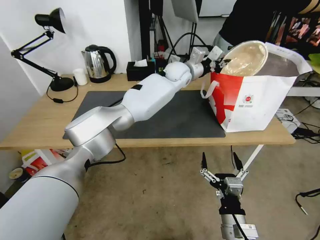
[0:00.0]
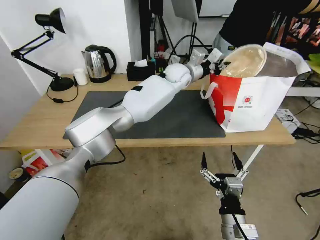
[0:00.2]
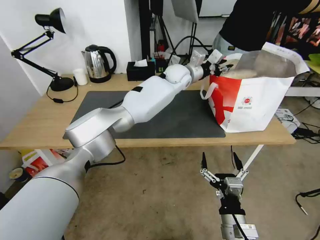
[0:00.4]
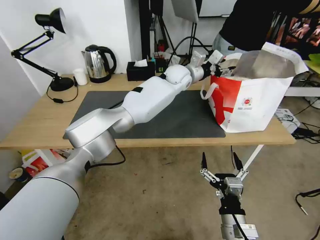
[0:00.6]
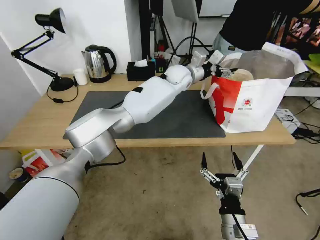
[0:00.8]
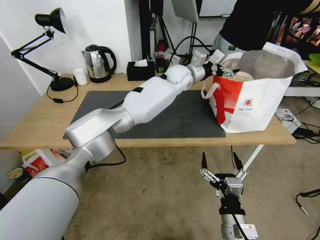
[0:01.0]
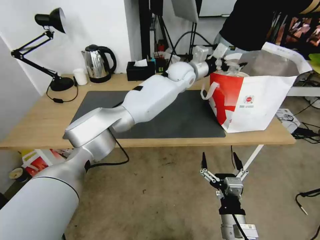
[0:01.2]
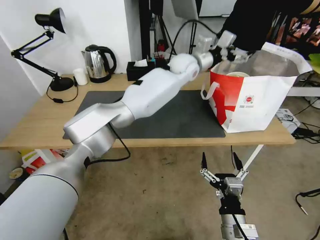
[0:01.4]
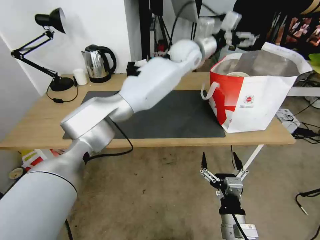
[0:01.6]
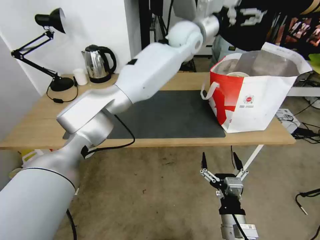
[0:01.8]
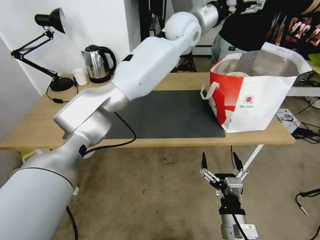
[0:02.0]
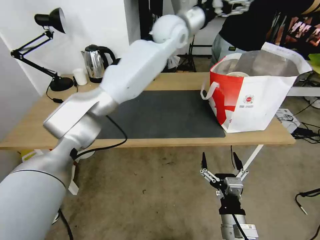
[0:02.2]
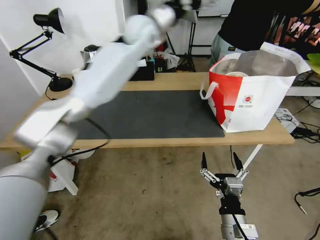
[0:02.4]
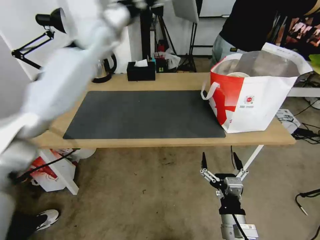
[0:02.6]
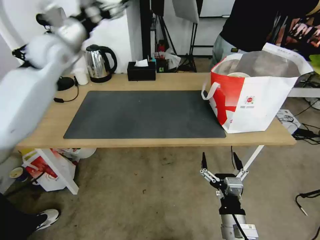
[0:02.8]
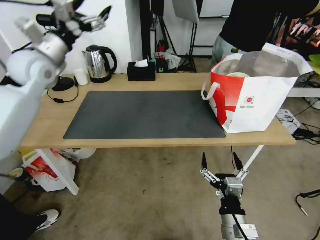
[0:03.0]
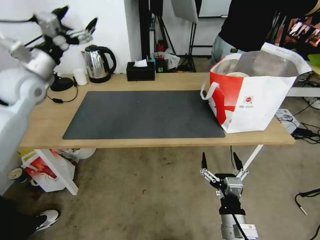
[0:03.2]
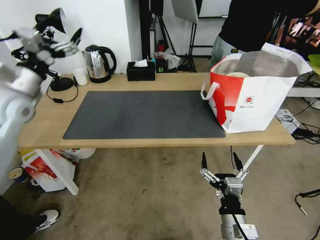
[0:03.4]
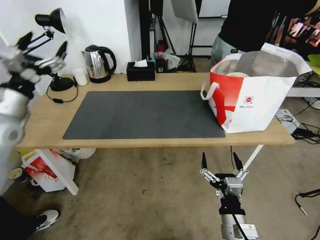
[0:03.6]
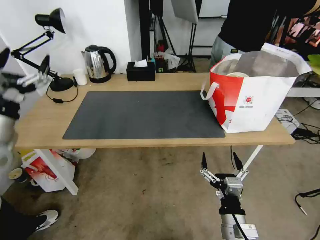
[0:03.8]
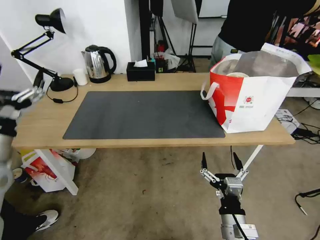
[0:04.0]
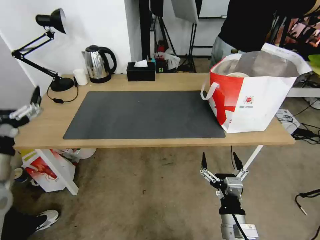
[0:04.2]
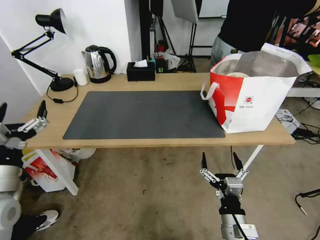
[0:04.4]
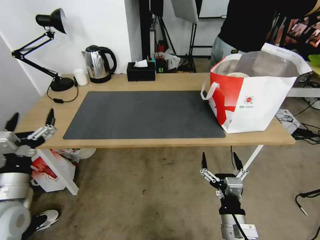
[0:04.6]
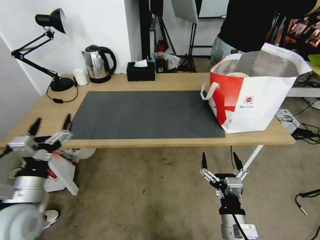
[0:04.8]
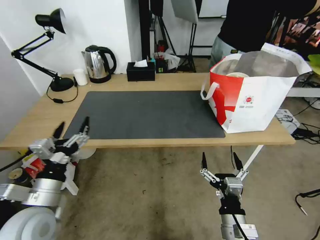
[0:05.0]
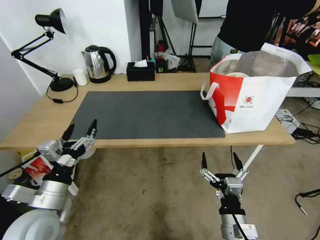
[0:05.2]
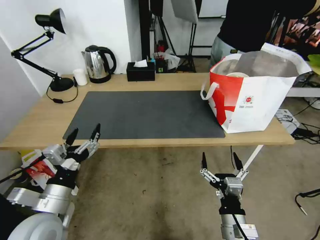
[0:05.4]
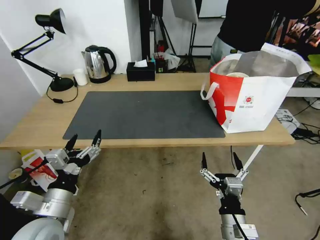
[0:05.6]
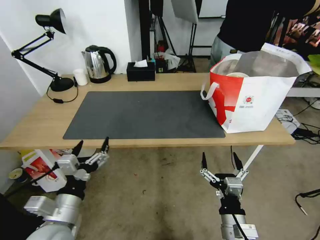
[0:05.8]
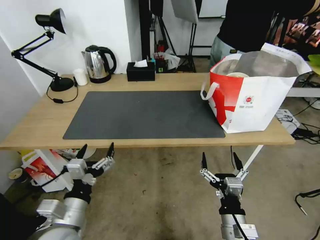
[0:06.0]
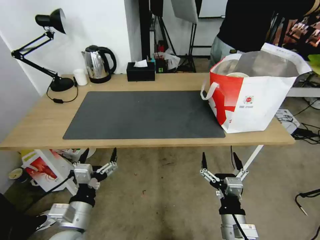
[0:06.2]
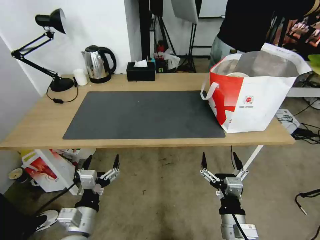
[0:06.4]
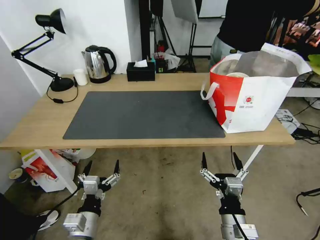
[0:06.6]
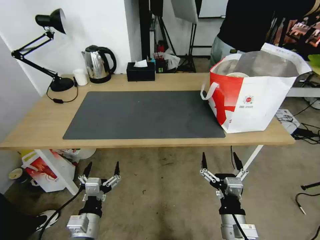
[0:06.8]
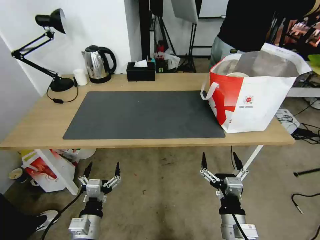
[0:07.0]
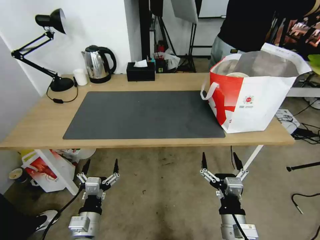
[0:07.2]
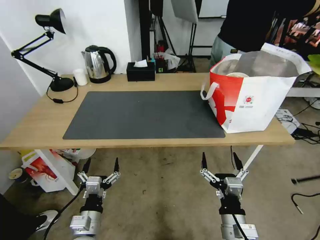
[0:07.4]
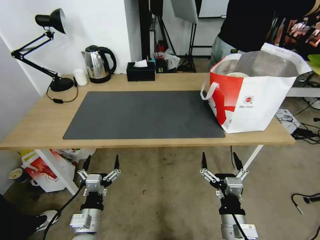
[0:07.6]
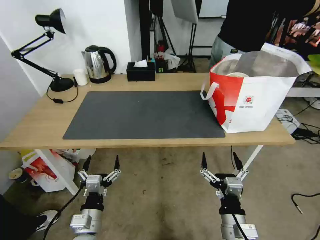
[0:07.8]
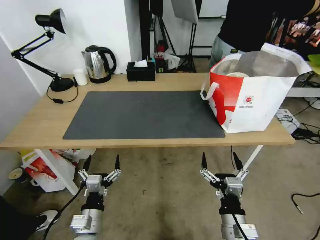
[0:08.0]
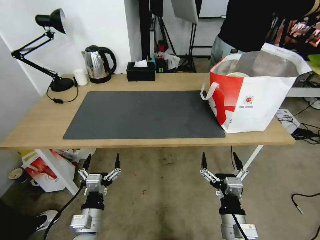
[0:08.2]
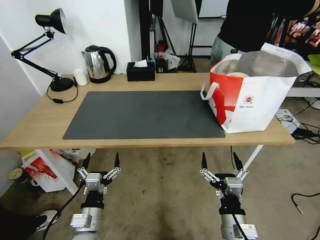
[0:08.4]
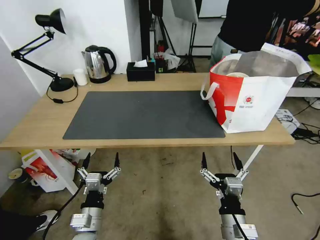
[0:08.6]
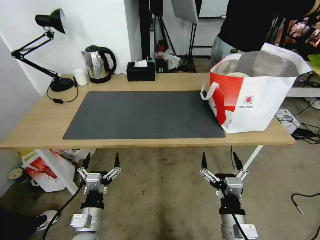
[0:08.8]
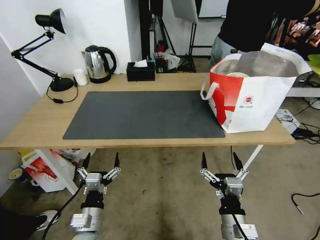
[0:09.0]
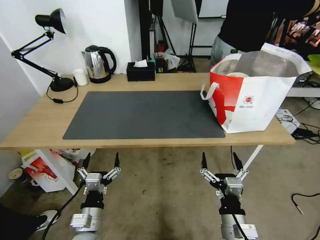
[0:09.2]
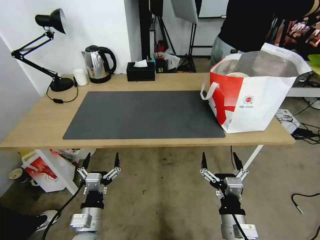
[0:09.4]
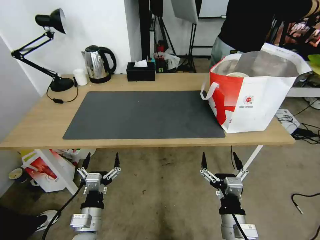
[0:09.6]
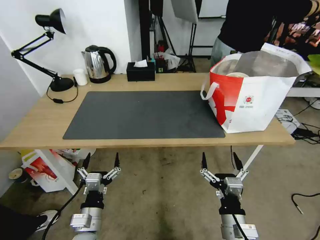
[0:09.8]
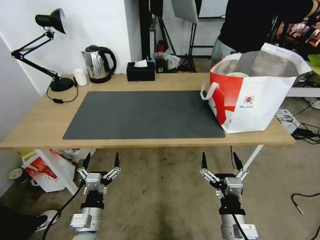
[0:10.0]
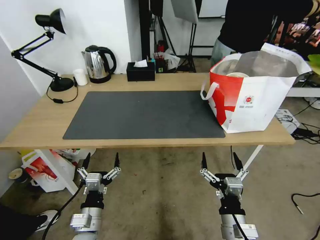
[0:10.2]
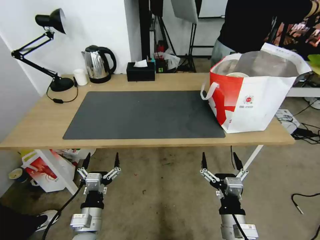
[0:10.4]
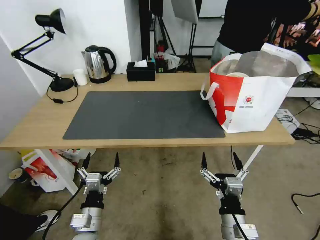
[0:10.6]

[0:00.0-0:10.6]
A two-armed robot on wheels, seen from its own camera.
Task of the whole recording: Pick up the trash from the table and place it into the takeout bag.
0:00.0 to 0:01.6: The left gripper moves upward, some 10 cm, and opens its fingers.
0:01.6 to 0:03.0: The left gripper heads to the left, covering some 40 cm.
0:03.0 to 0:04.6: The left gripper heads backward and downward, covering some 35 cm.
0:04.6 to 0:06.0: The left gripper is displaced to the right and downward by some 15 cm.
0:06.0 to 0:07.6: The left gripper moves downward, approximately 10 cm.
0:07.6 to 0:10.6: Both grippers stay put.
